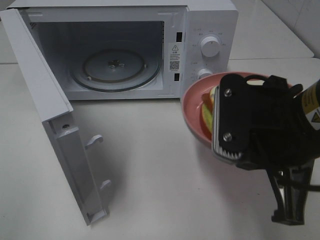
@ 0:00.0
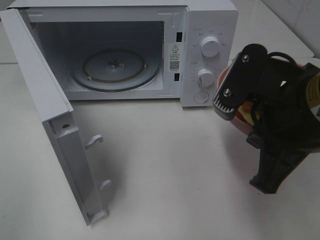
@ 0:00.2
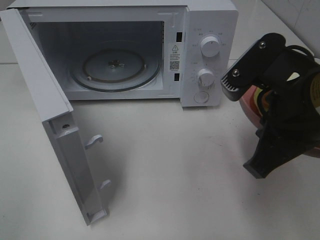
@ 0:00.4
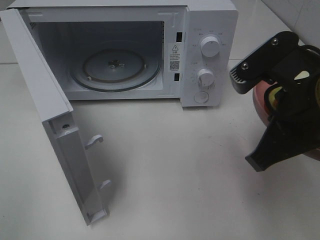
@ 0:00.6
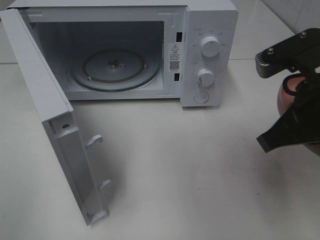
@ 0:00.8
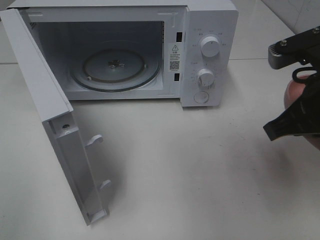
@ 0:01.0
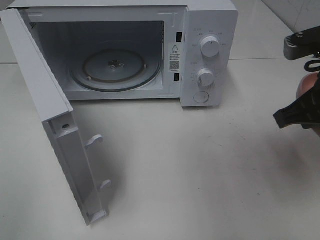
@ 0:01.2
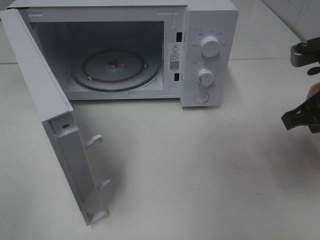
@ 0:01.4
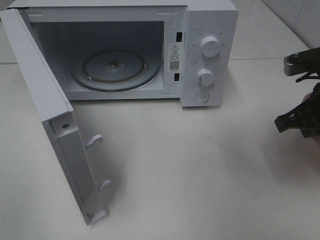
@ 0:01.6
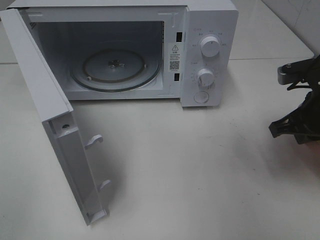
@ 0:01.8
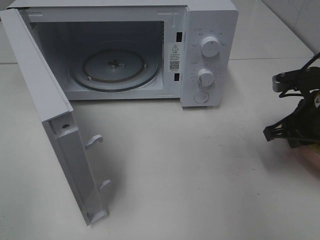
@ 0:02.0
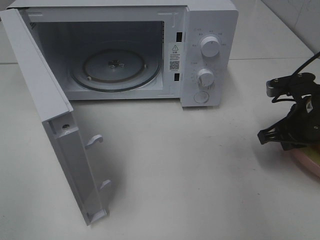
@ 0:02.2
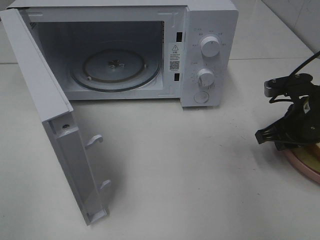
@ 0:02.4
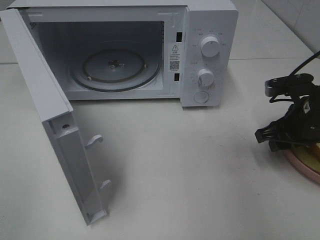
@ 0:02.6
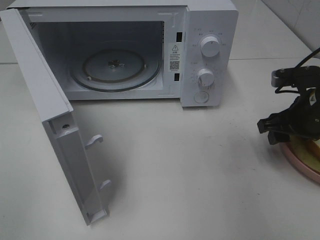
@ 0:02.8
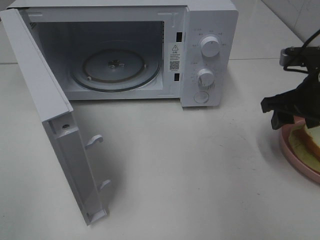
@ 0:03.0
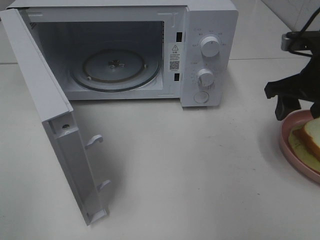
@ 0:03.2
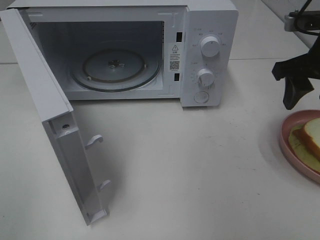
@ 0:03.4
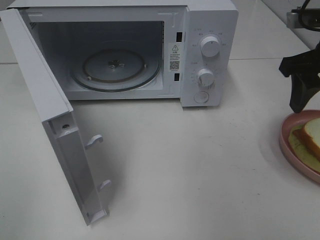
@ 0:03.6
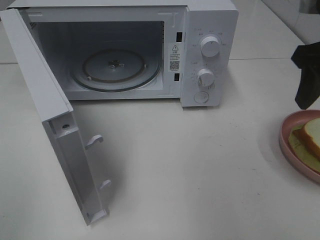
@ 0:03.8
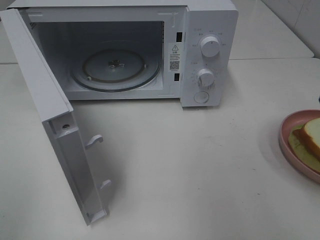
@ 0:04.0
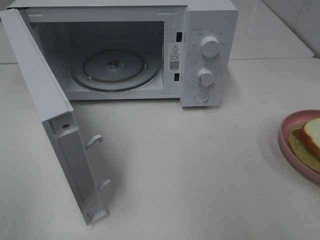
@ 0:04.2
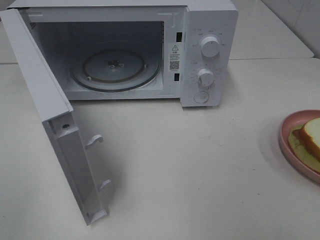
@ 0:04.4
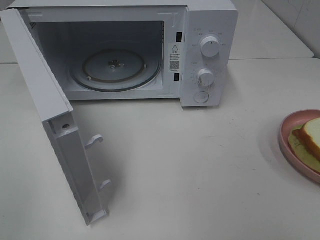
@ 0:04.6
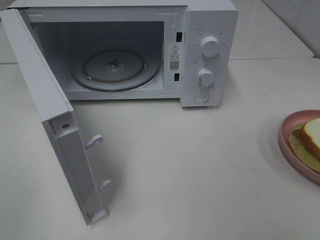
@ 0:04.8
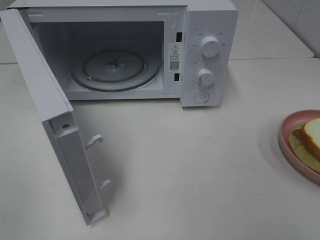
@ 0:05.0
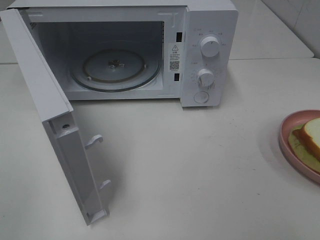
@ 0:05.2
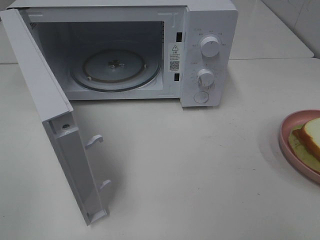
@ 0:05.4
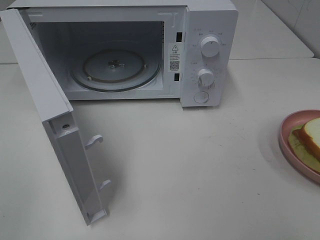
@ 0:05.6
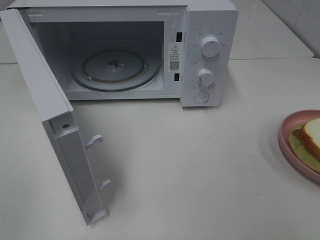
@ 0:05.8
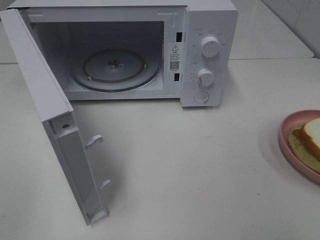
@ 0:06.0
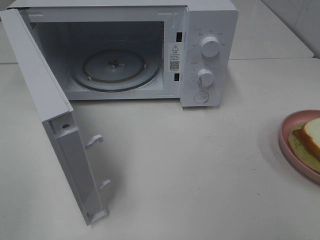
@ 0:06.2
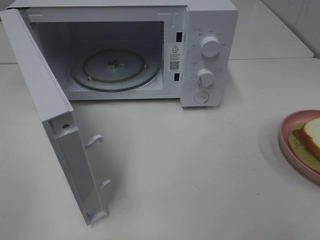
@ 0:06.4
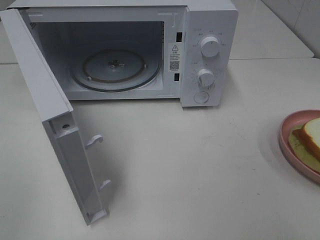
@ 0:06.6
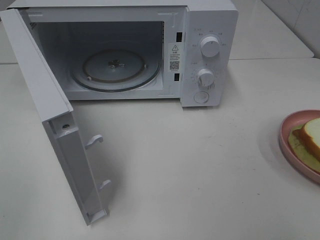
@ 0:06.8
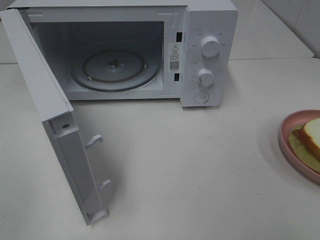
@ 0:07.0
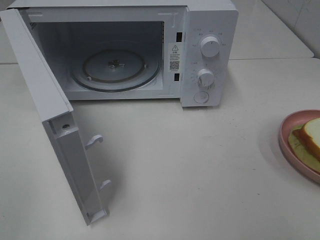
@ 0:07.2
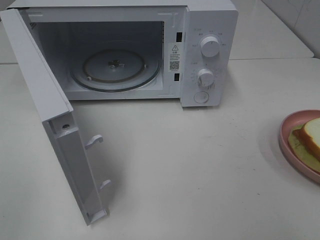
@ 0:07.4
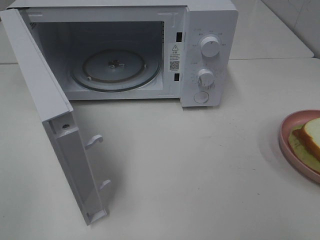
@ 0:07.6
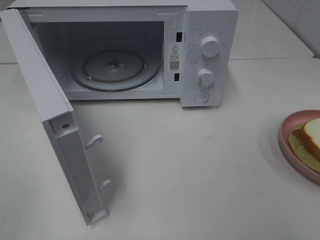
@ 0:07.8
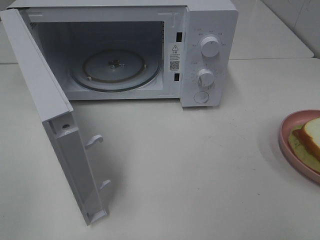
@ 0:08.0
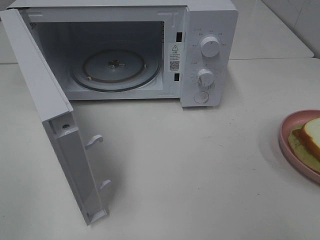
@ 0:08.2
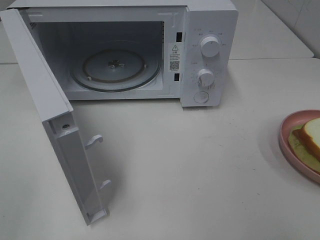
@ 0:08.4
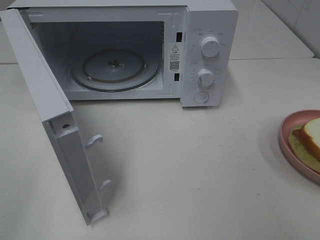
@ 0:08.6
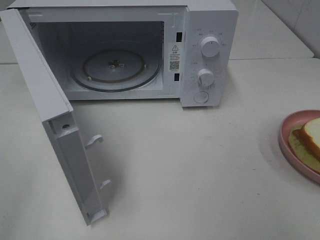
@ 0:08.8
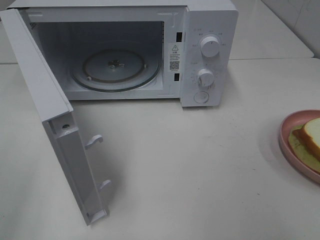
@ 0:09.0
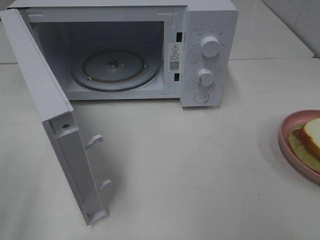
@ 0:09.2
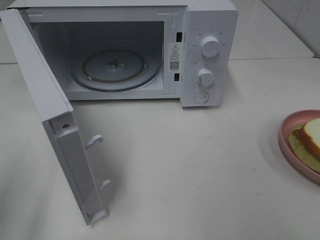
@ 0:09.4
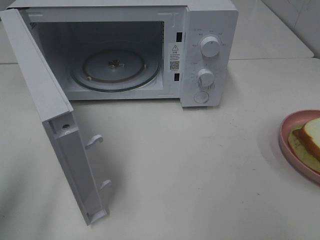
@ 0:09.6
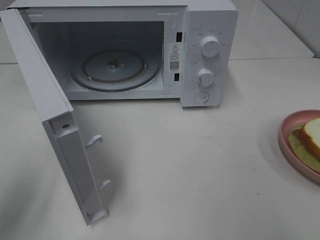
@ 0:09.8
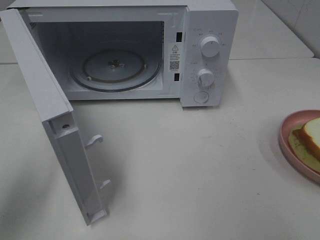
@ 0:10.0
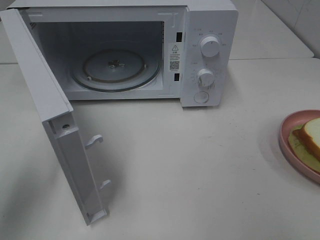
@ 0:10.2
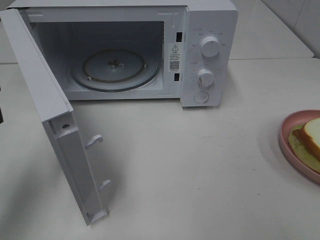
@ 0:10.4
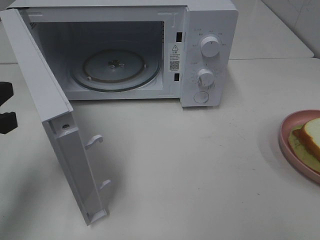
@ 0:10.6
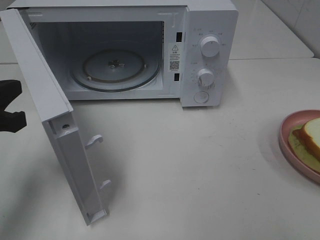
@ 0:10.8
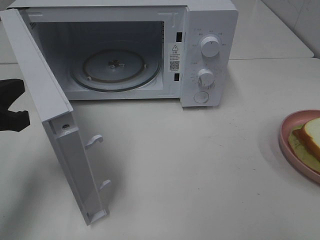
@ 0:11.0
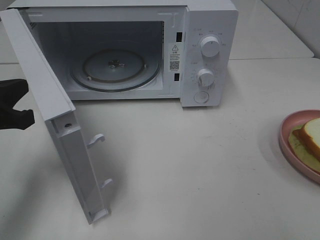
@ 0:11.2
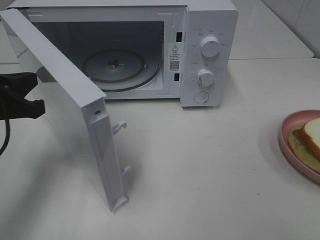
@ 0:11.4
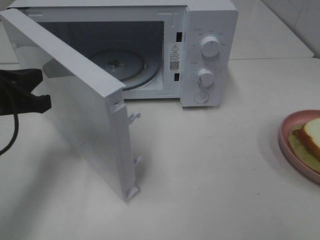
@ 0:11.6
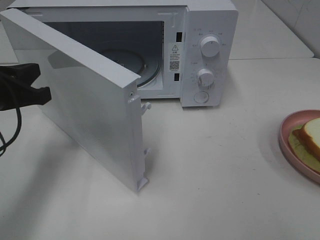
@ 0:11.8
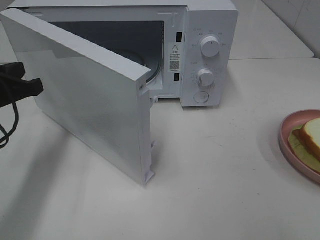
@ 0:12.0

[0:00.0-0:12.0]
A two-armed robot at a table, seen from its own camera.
Task of the whole recording: Heat Sandwich.
Step, 0:00.0 to 0:03.2: Right hand: place the plate on the table.
0:00.0 to 0:01.6: The right gripper shifts some 15 cm to the right and forward.
0:01.6 to 0:03.0: The right gripper opens up.
0:03.0 to 0:04.4: The right gripper is displaced backward and upward by about 25 cm.
0:06.0 to 0:07.6: The two grippers keep their place.
0:09.0 to 0:10.4: The left gripper heads forward, to the right and downward, covering roughly 15 cm, and closes up.
0:10.4 to 0:12.0: The left gripper moves forward, approximately 5 cm.

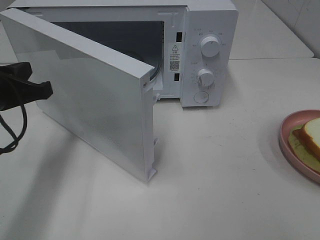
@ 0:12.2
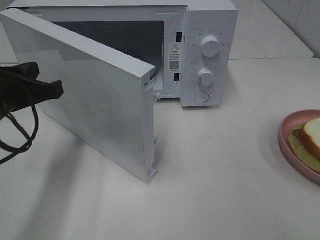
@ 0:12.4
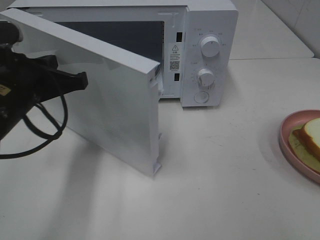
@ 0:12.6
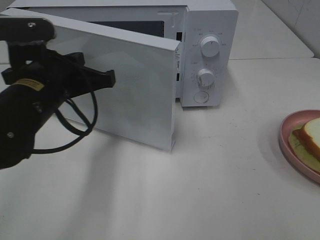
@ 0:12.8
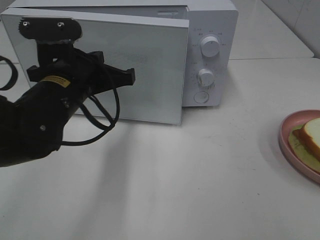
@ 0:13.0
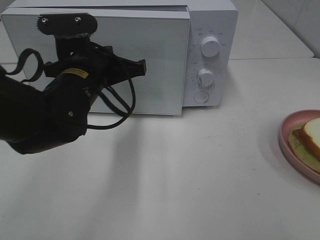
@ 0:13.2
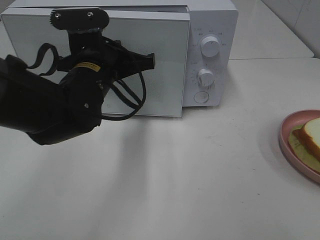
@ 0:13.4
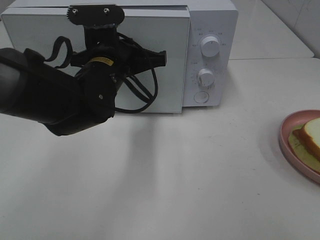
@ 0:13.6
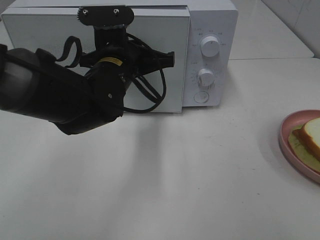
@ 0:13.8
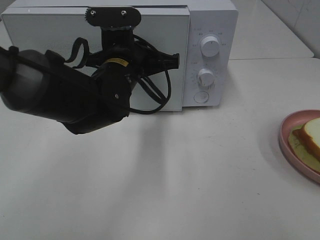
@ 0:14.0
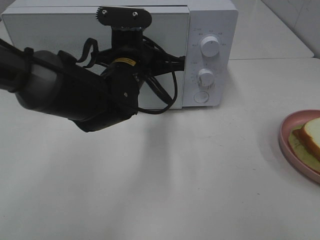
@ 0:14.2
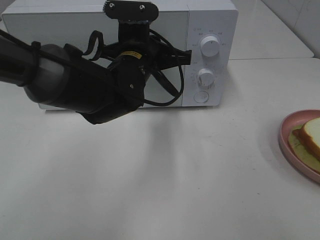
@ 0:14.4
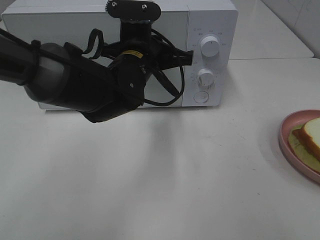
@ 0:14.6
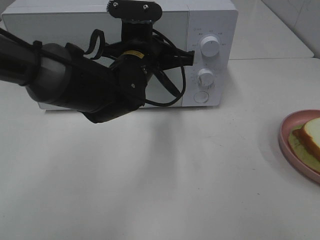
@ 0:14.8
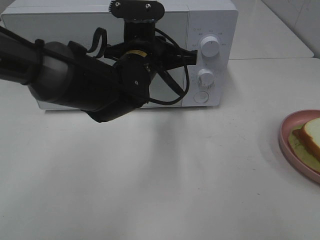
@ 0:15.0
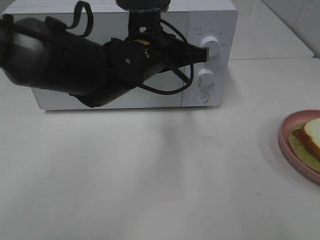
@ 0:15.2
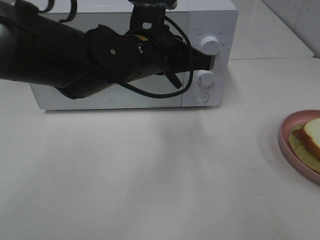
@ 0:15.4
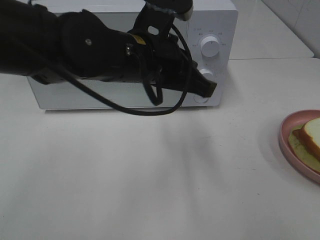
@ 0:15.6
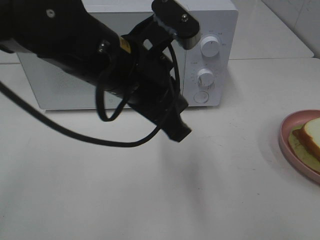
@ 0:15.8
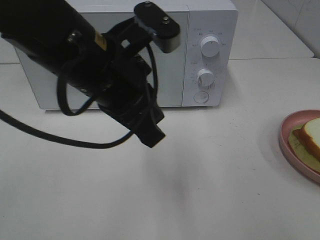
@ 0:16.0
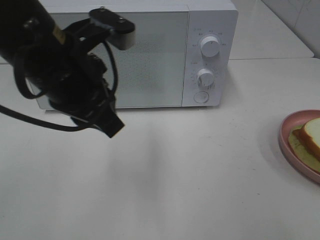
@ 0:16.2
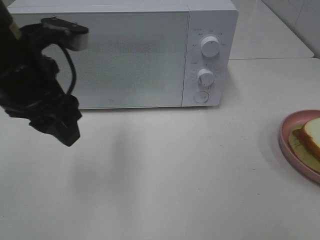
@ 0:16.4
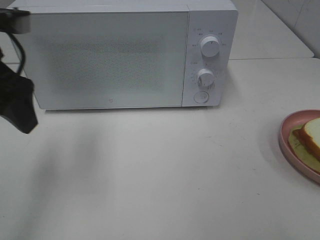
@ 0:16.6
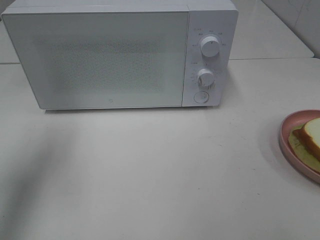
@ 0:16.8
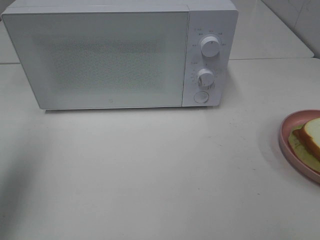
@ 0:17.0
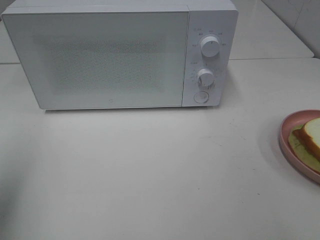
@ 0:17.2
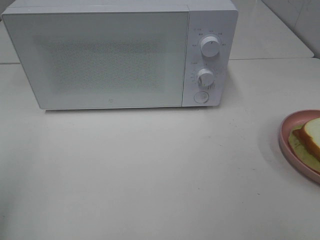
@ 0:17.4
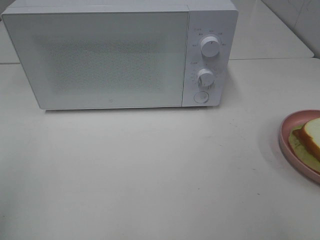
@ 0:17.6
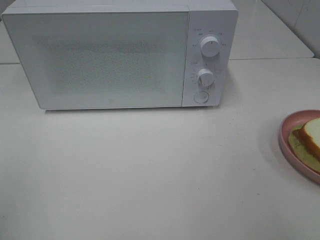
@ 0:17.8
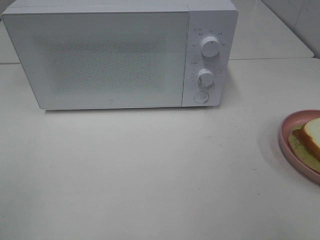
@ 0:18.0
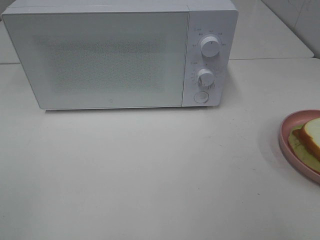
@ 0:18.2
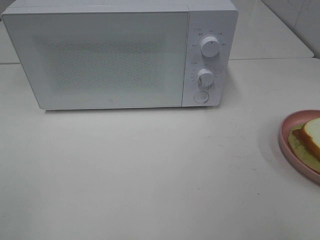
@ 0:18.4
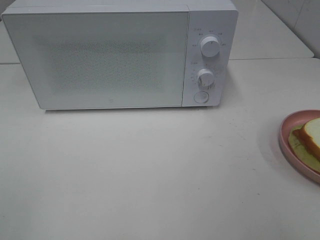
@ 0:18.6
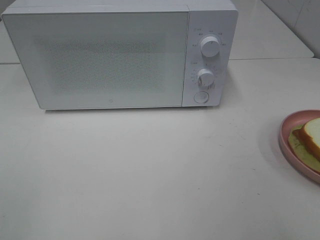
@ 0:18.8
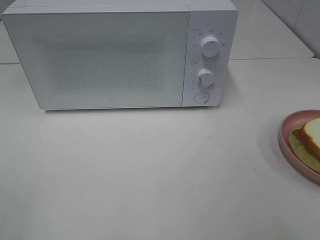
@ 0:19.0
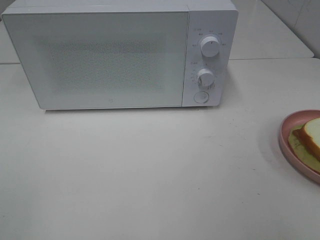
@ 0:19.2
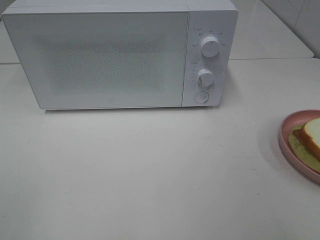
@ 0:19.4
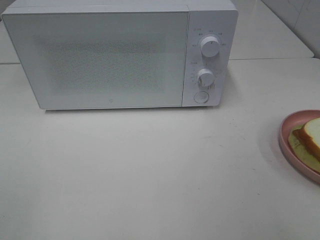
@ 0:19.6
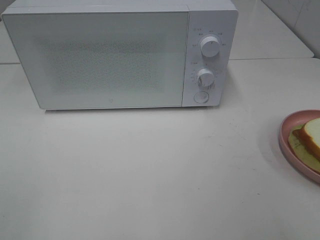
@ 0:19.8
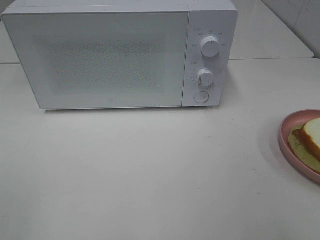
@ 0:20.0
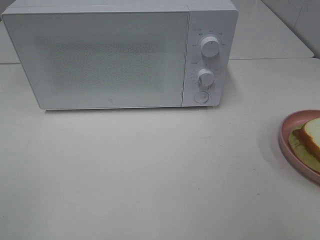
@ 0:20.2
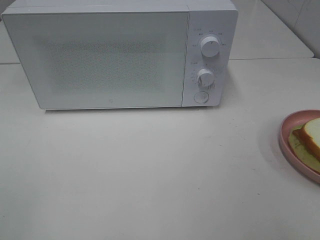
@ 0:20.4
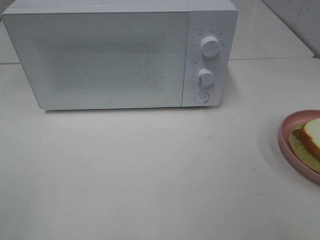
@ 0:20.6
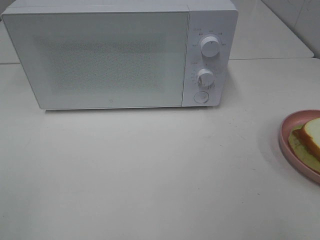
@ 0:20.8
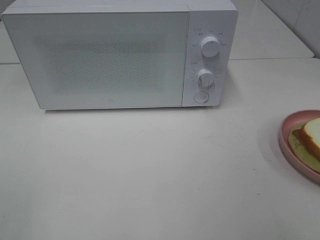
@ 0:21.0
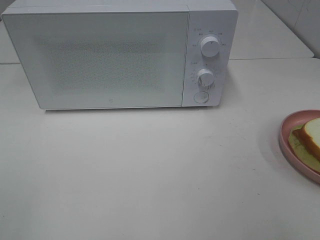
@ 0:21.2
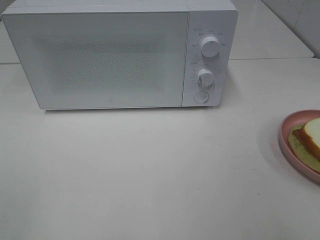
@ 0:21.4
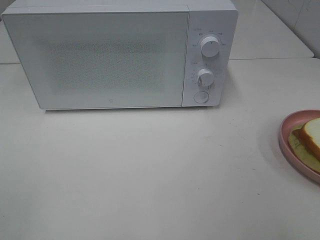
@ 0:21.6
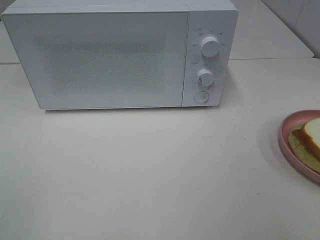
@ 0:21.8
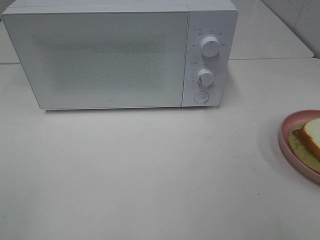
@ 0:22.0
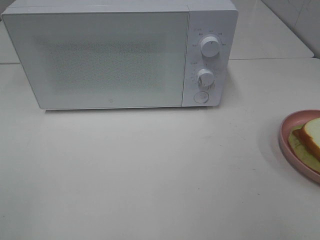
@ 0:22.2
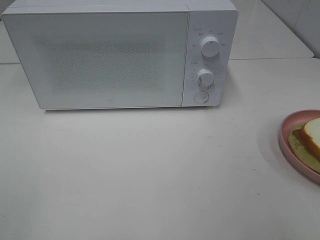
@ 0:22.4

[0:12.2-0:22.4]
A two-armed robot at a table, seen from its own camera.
Task of the whole recording: Heat Sandwich.
Step, 0:12.2 to 0:15.4: Left hand: close the microwave door.
0:12.2 to 0:13.6: The left gripper travels to the right and forward by some 20 cm.
0:13.6 to 0:15.2: The left gripper goes about 5 cm to the right.
0:15.2 to 0:16.6: The left gripper travels to the left by about 20 cm, and opens.
0:16.6 to 0:18.0: The left gripper moves backward and to the left, approximately 25 cm.
0:19.4 to 0:22.4: Both grippers stay put.
